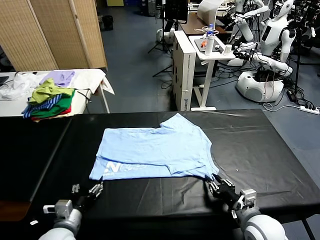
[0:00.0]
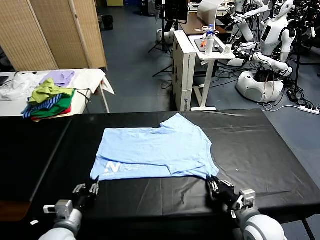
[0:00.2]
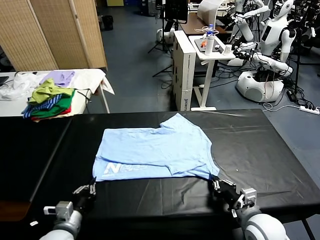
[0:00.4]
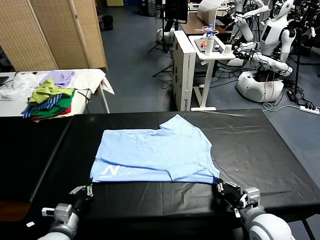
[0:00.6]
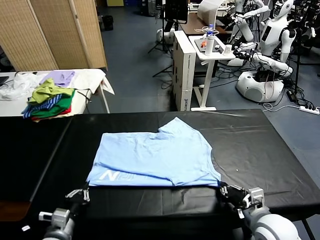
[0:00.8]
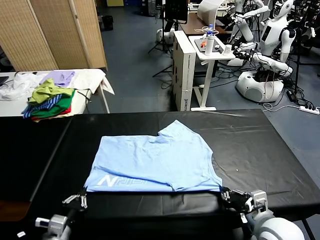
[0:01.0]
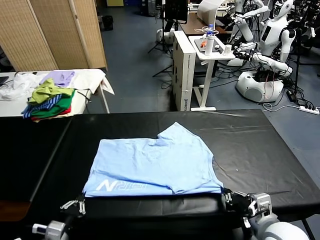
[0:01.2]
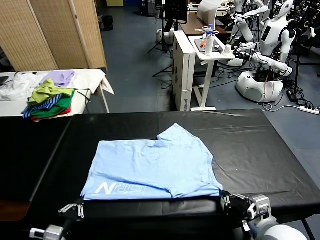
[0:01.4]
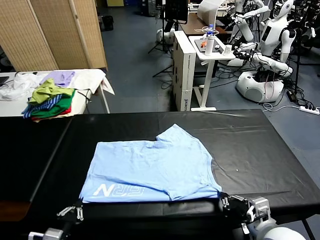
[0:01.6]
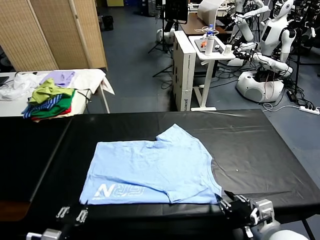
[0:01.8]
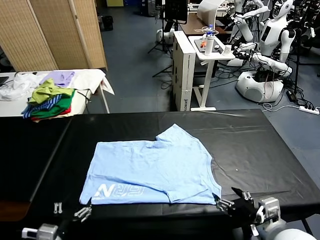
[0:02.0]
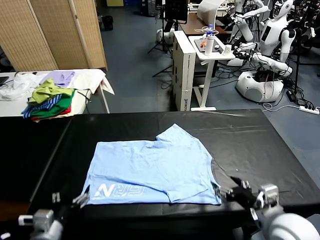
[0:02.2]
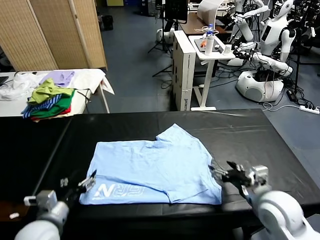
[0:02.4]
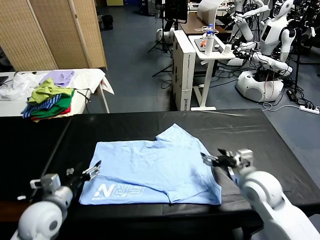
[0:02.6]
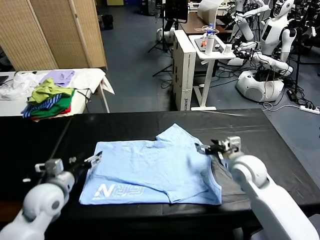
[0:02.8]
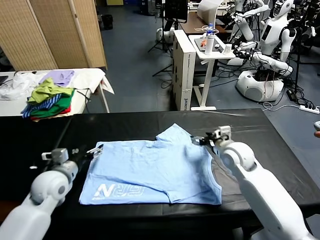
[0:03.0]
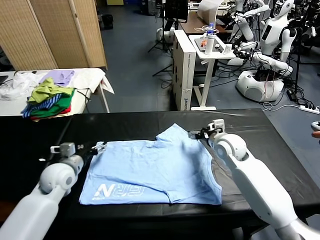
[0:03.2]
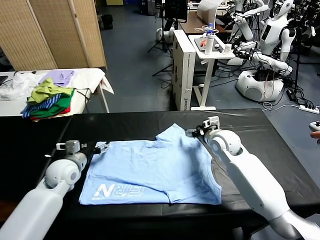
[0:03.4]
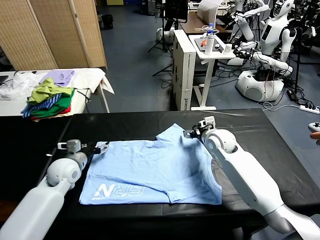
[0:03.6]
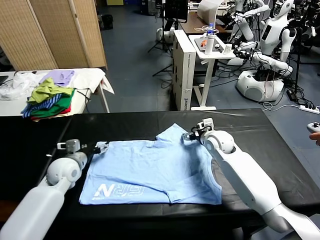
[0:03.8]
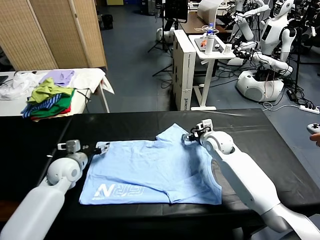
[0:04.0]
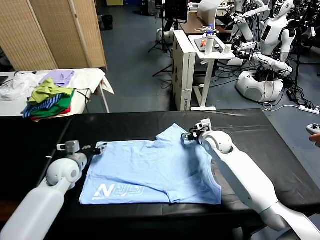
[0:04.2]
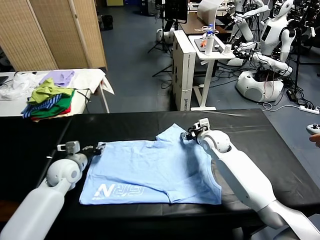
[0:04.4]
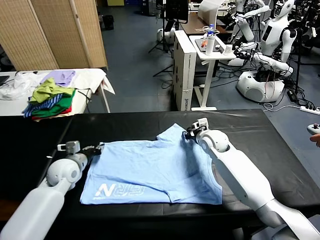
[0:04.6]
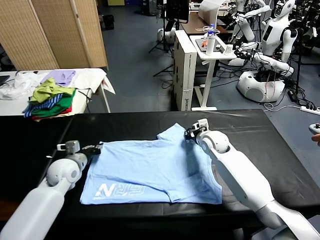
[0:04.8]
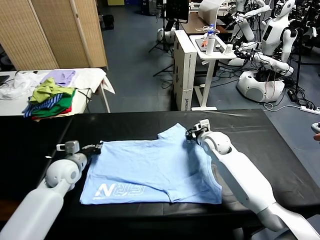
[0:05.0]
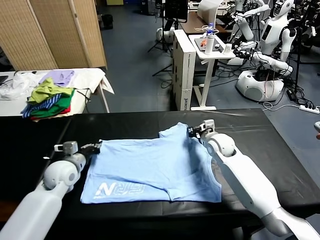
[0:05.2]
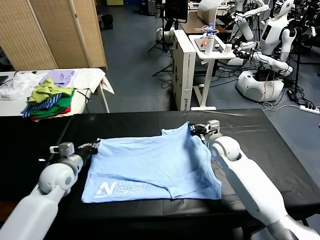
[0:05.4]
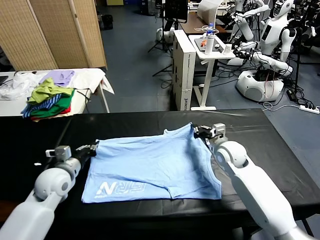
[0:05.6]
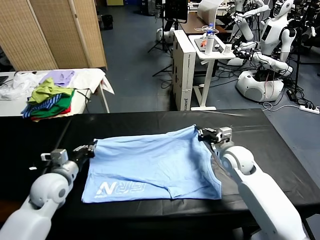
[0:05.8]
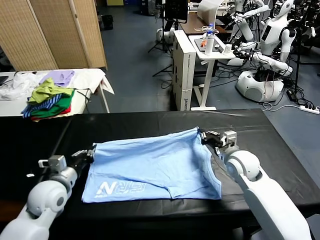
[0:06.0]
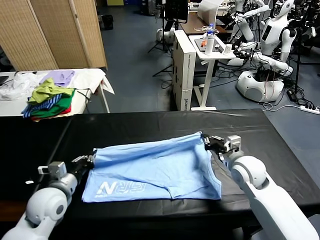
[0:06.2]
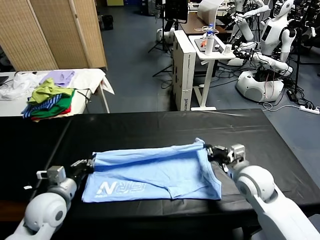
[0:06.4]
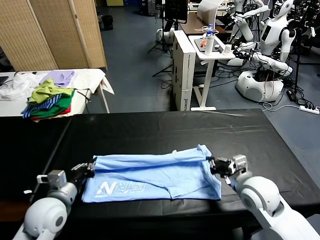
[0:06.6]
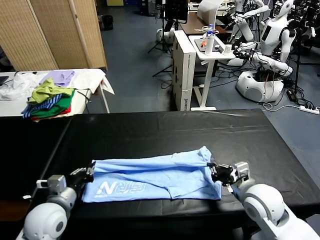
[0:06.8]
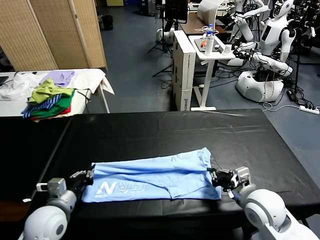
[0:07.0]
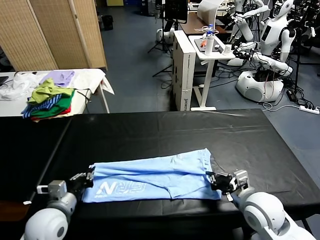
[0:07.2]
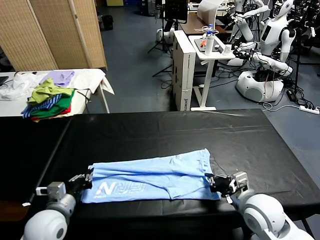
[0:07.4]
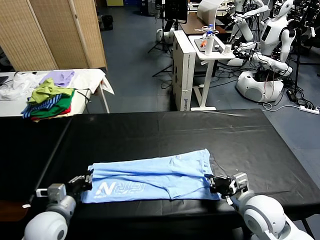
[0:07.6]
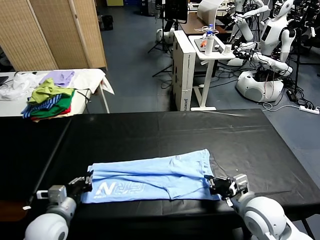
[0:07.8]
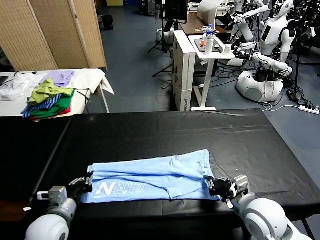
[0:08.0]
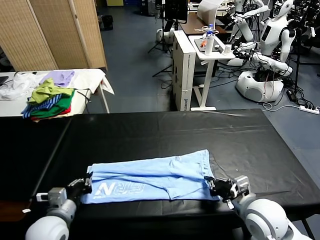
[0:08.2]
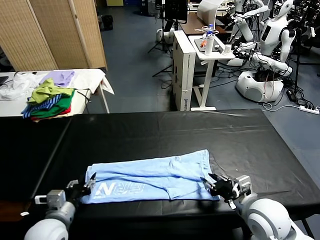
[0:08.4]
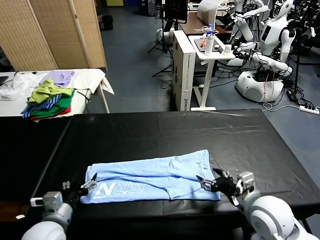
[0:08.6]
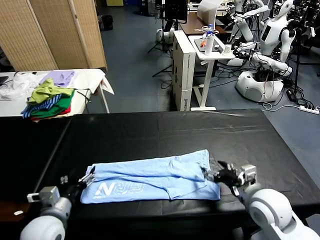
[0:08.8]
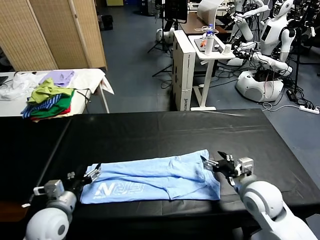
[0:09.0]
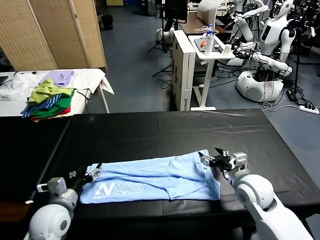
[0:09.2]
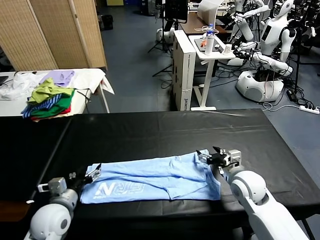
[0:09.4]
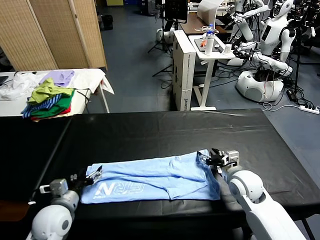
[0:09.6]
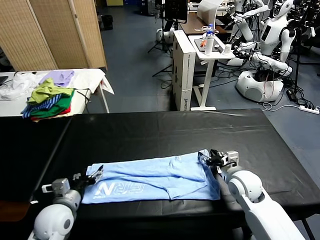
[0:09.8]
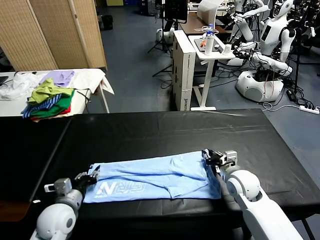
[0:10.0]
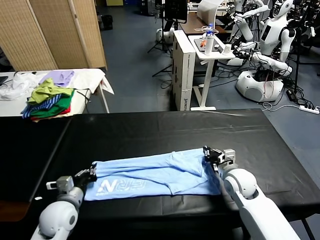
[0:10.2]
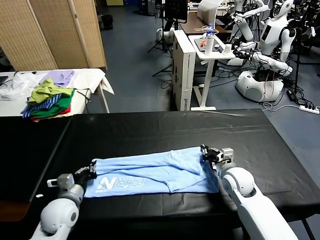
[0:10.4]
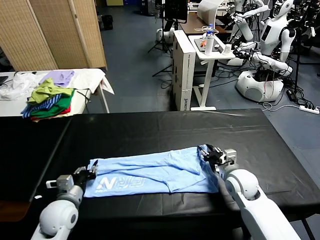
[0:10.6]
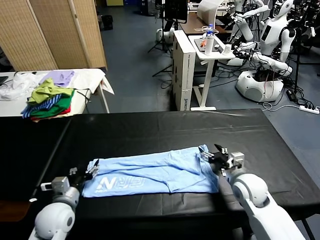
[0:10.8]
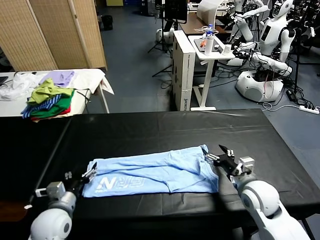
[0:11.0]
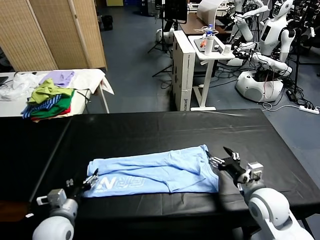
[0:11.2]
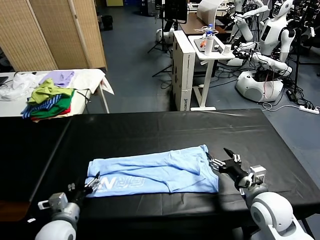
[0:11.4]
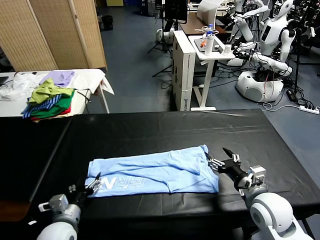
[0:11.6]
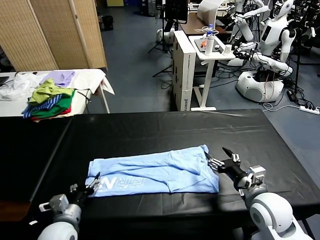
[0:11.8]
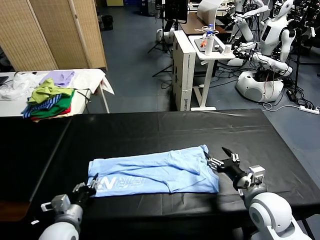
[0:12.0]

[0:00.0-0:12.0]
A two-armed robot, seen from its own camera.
Task of the whole recording: fold and organize the clothes.
Step, 0:00.0 to 0:01.6: Drag the clothes downward with both gripper.
Step, 0:01.8 to 0:05.2: use both grippers simultaneously to clamp the upper edge of the clothing fabric.
Step, 0:05.4 to 0:08.2: use both grippers to drag the upper edge of the fabric backward and fold it over the lower edge.
0:00.0 to 0:01.6: The right gripper heads upward and backward, covering some 10 cm, and opens. Meanwhile the left gripper moves backward, some 10 cm.
0:01.6 to 0:03.0: Both grippers move forward, roughly 30 cm. The left gripper opens up.
0:03.0 to 0:04.4: The left gripper shifts by roughly 5 cm, and closes; the right gripper ends up approximately 5 cm from where it was, and closes its fingers.
0:04.4 to 0:06.0: The right gripper is displaced backward and to the right by approximately 15 cm. Meanwhile the left gripper goes some 10 cm backward.
0:06.0 to 0:07.6: The left gripper is displaced backward by some 5 cm. Meanwhile the right gripper moves backward, about 10 cm.
0:07.6 to 0:09.0: The left gripper opens. Meanwhile the right gripper heads forward, covering approximately 5 cm, and opens up.
0:09.0 to 0:10.4: The right gripper shifts some 5 cm downward, and closes up. The left gripper shifts by some 5 cm, and closes.
0:10.4 to 0:12.0: The right gripper goes some 15 cm backward and upward, and opens, while the left gripper shifts roughly 5 cm backward, and opens, then closes once more.

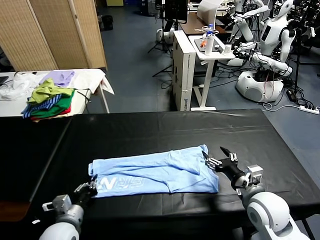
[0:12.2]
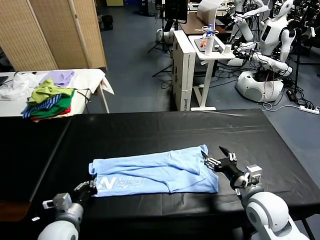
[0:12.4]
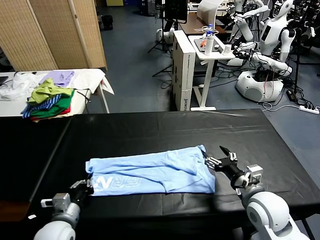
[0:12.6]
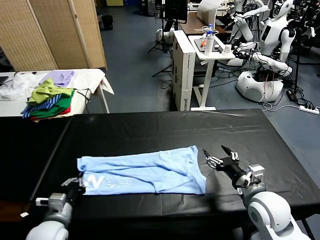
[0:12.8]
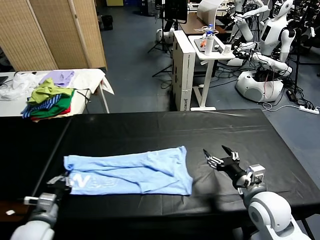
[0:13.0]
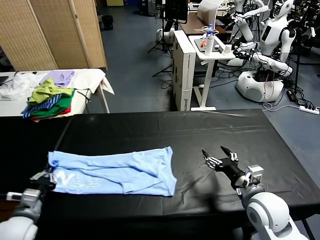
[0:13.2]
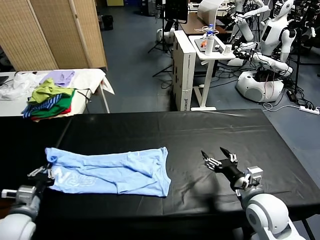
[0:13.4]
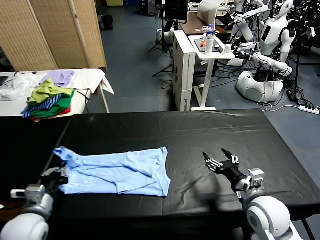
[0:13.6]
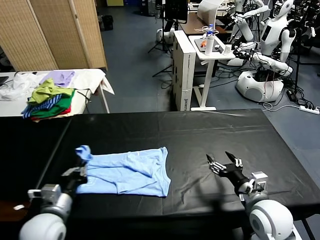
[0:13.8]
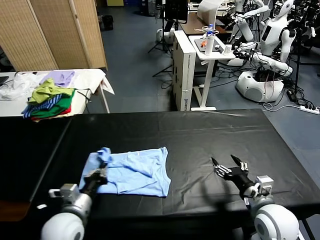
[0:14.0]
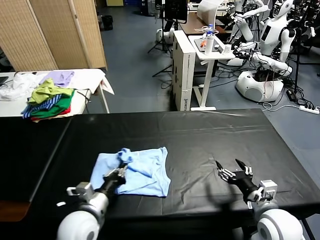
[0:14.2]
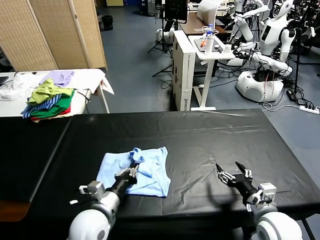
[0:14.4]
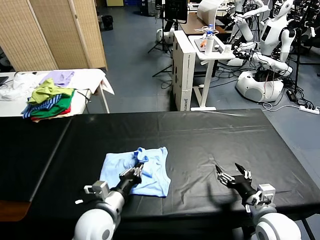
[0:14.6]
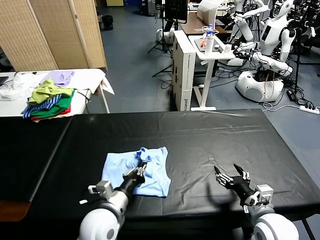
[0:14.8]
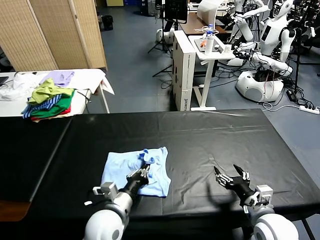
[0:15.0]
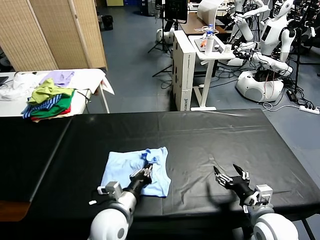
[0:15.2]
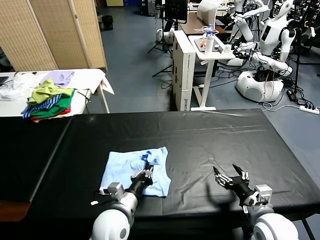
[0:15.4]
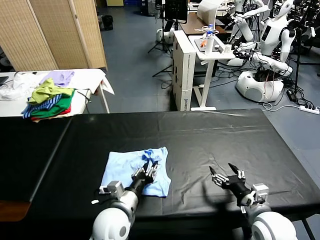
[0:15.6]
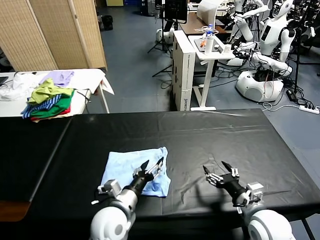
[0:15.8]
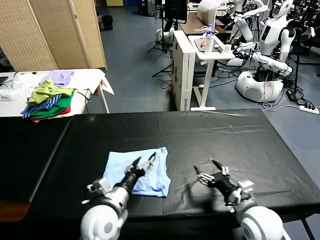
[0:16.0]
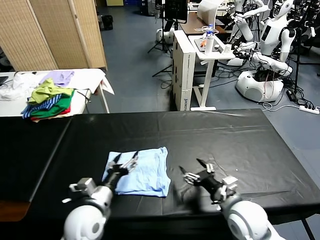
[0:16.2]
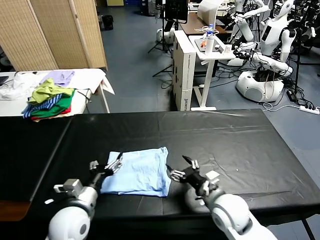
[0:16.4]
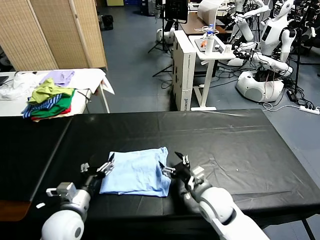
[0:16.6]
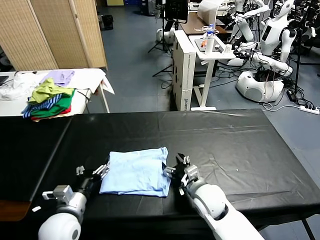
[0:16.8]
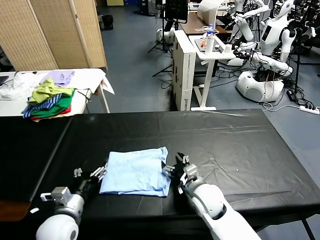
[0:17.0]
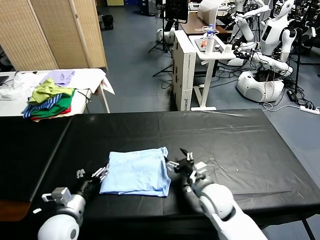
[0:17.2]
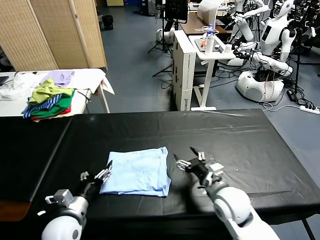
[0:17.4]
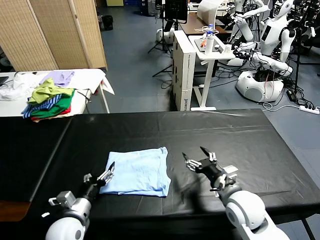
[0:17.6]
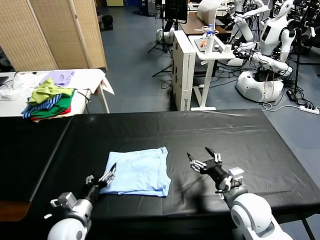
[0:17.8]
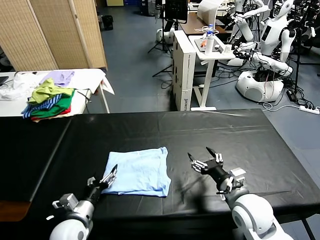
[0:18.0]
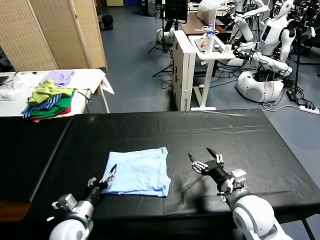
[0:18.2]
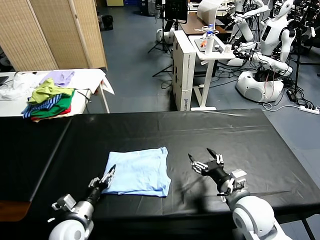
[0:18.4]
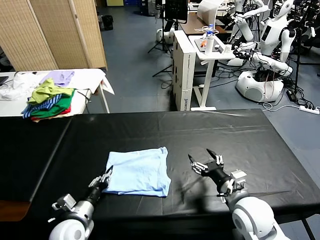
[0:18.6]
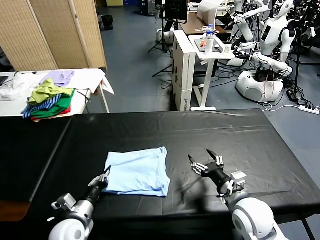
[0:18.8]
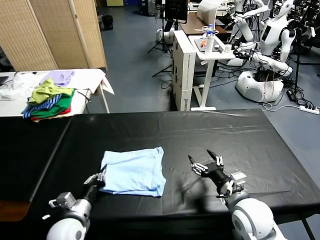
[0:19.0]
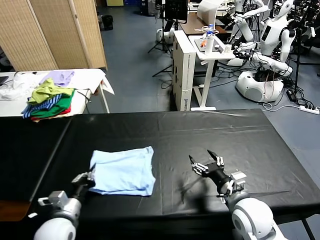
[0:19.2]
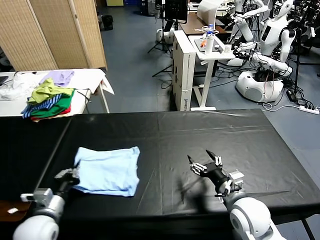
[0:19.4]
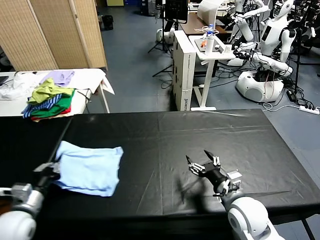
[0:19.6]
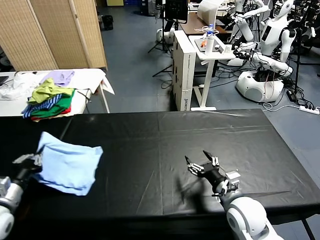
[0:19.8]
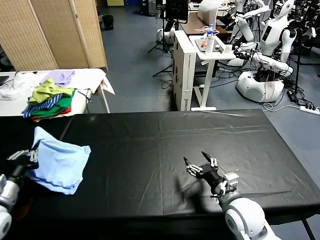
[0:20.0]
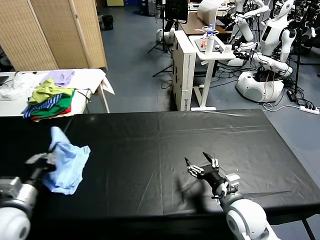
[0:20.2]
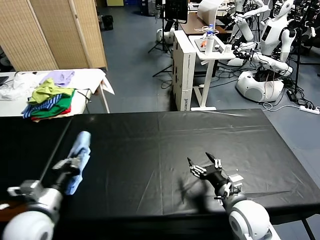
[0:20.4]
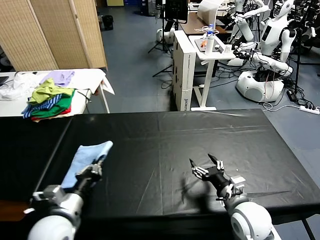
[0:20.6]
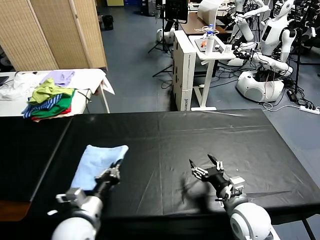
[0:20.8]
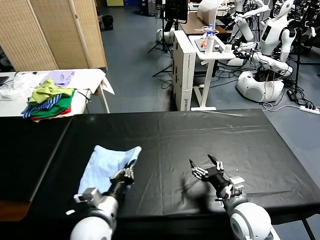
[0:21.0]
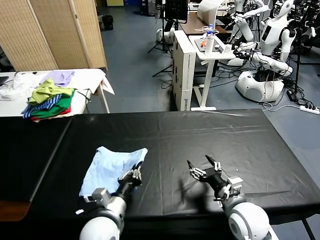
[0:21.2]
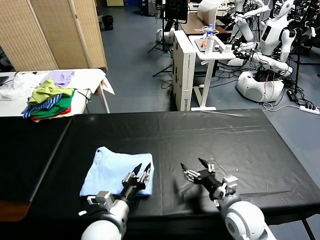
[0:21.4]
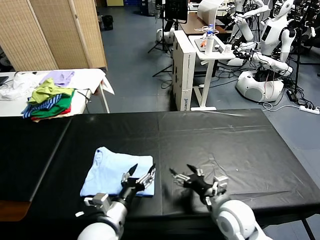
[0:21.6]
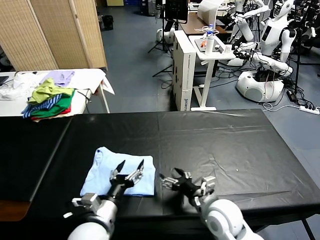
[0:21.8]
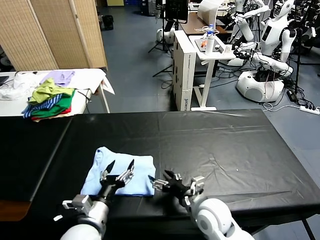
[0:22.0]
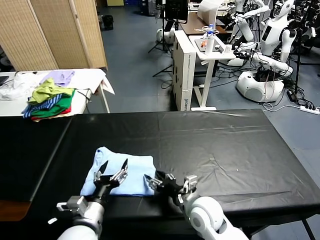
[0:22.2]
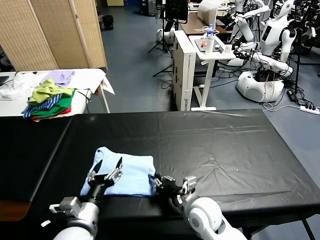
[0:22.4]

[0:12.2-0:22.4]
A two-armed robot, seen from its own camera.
Task of the whole recording: fold and organize the clothes.
Step, 0:13.0 to 0:15.8: use the left gripper to drag the left edge of the fabric to the left and folds it over the right edge.
Step, 0:16.0 to 0:21.4: Flip the folded clothes over with left gripper.
0:12.2 to 0:13.6: The left gripper travels upward and to the left by about 10 cm.
0:13.6 to 0:15.2: The left gripper travels to the right by approximately 20 cm.
0:15.2 to 0:16.6: The right gripper heads to the left and forward, covering approximately 15 cm, while the left gripper moves to the left, some 10 cm, and opens up.
0:16.6 to 0:18.0: The right gripper travels to the right and upward by approximately 10 cm. Meanwhile the left gripper travels downward by approximately 5 cm.
0:18.0 to 0:19.4: The left gripper shifts about 10 cm to the left and upward, and closes.
0:19.4 to 0:21.0: The left gripper moves to the right, approximately 15 cm.
0:21.0 to 0:22.4: The left gripper opens its fingers. Meanwhile the right gripper travels to the left by roughly 10 cm, and closes.
